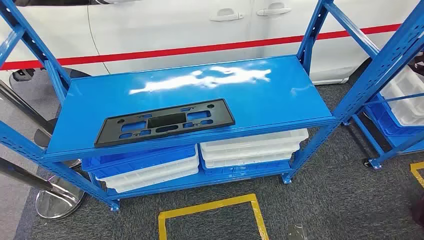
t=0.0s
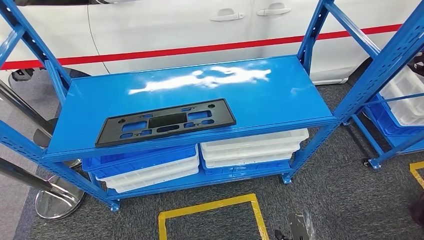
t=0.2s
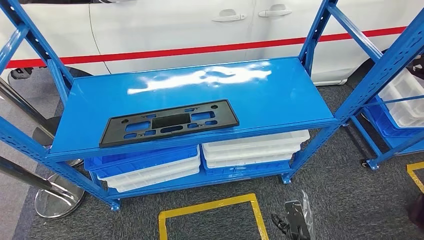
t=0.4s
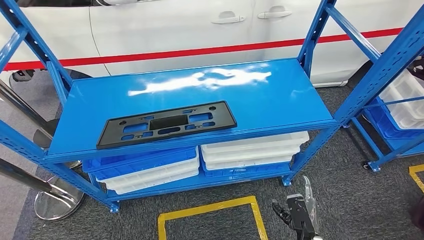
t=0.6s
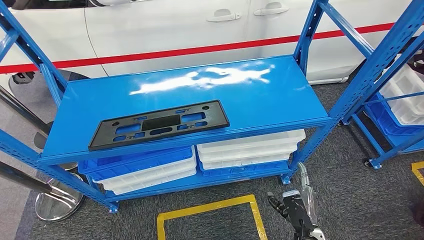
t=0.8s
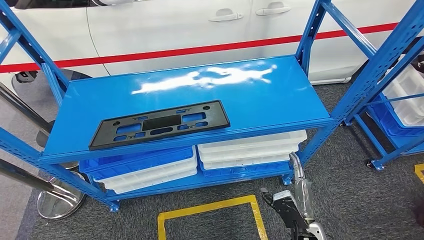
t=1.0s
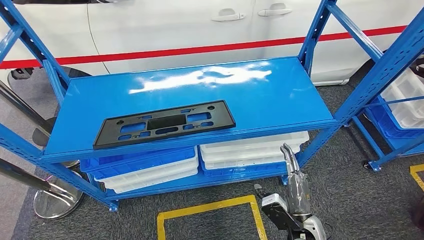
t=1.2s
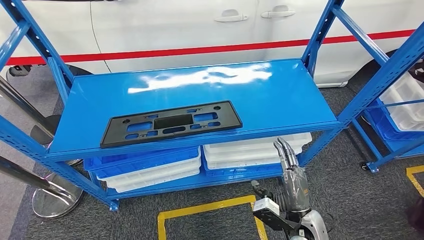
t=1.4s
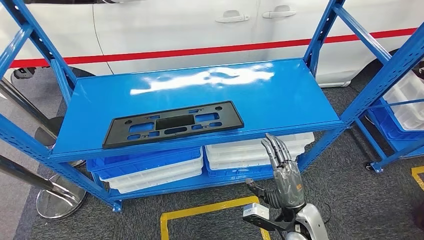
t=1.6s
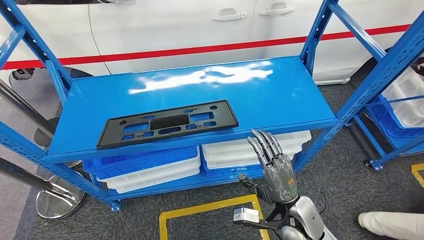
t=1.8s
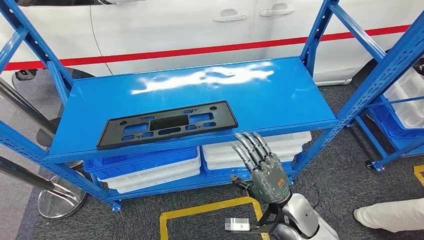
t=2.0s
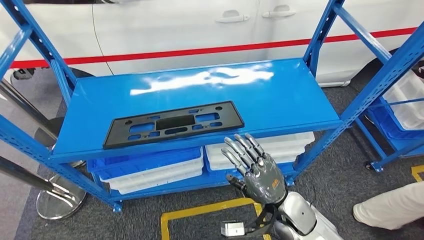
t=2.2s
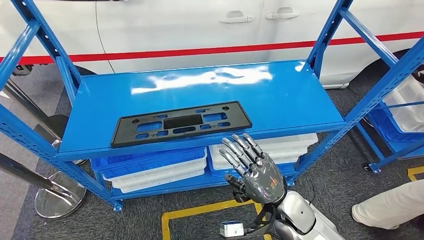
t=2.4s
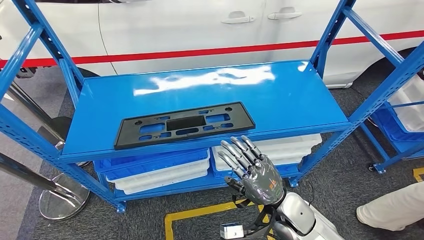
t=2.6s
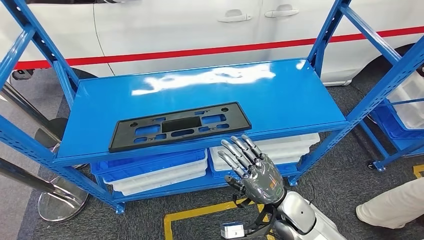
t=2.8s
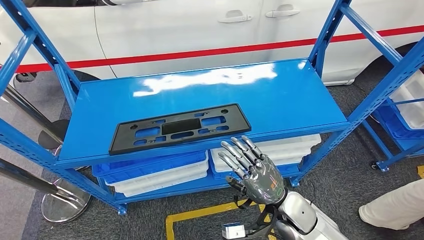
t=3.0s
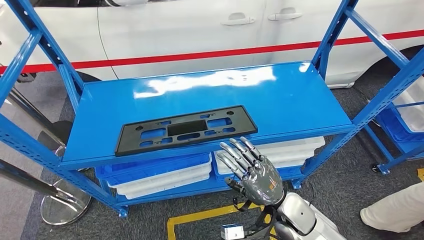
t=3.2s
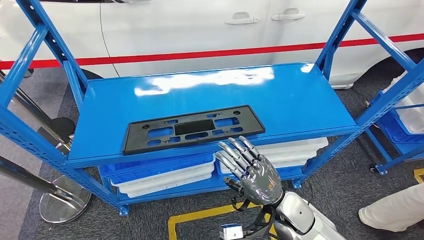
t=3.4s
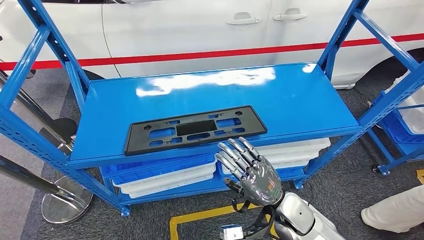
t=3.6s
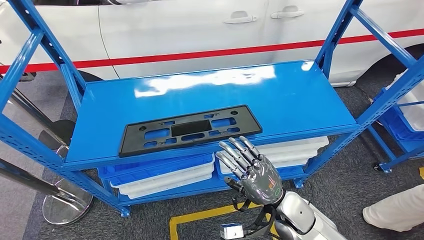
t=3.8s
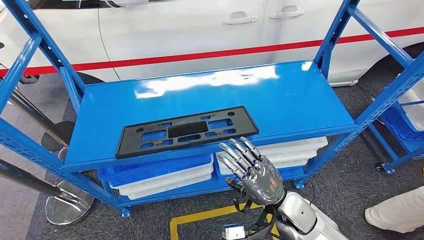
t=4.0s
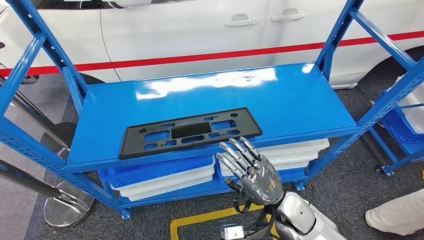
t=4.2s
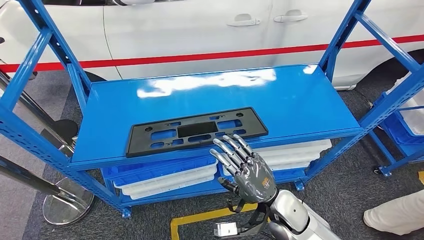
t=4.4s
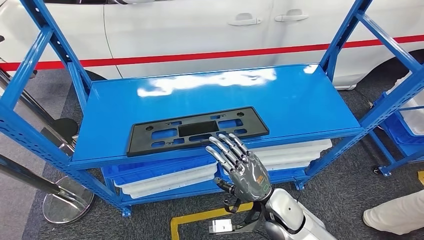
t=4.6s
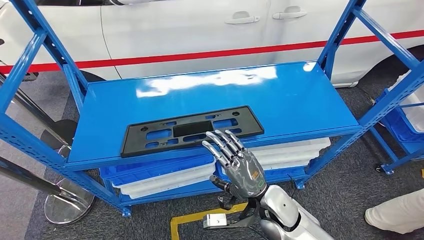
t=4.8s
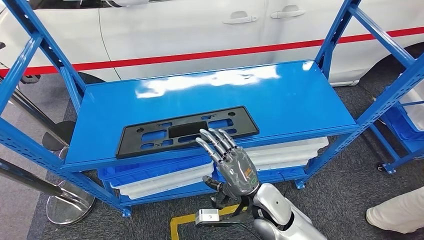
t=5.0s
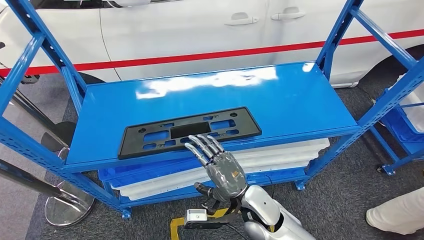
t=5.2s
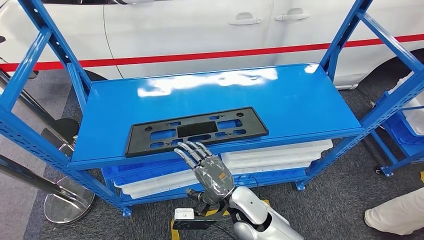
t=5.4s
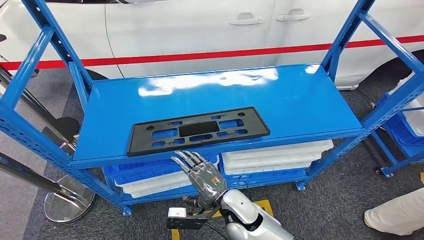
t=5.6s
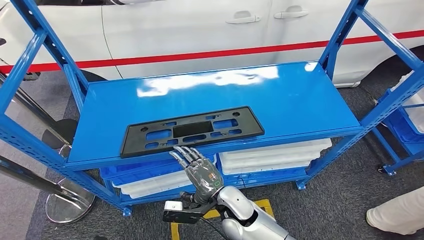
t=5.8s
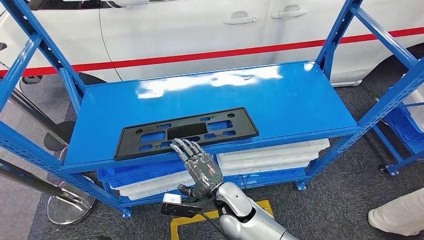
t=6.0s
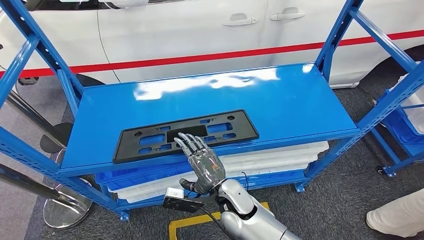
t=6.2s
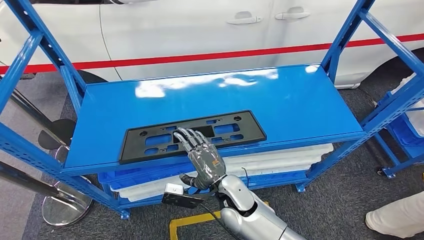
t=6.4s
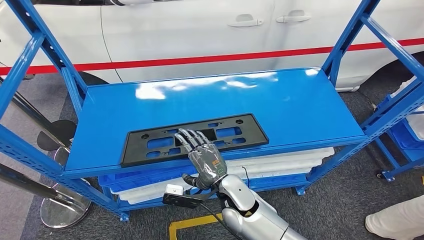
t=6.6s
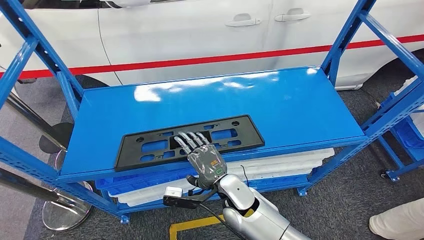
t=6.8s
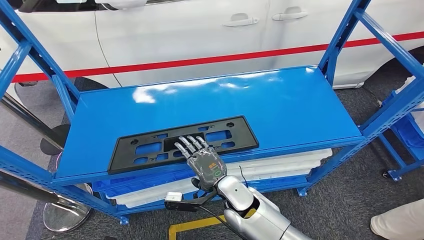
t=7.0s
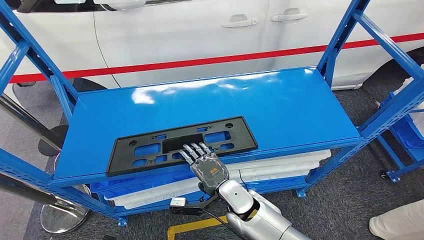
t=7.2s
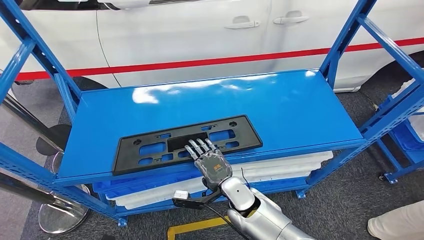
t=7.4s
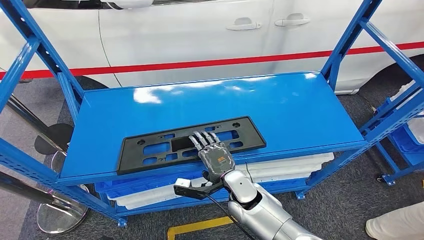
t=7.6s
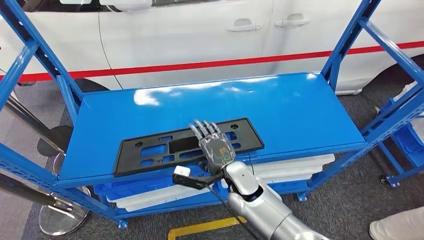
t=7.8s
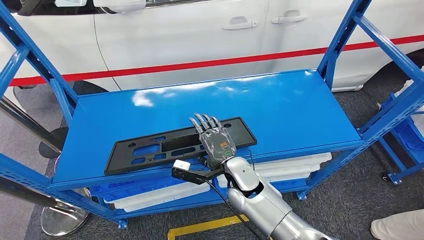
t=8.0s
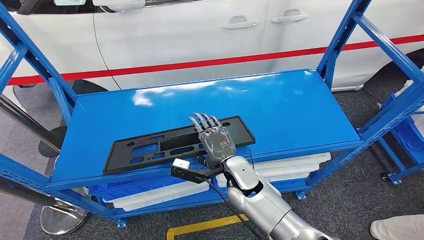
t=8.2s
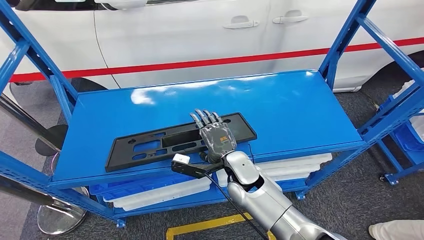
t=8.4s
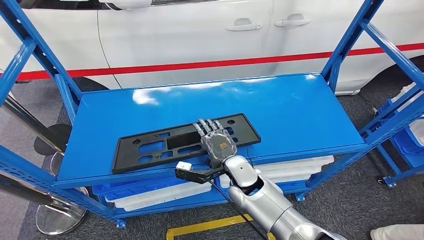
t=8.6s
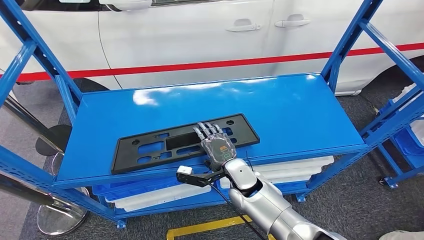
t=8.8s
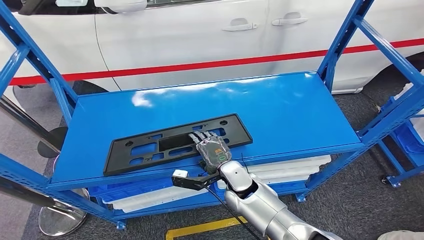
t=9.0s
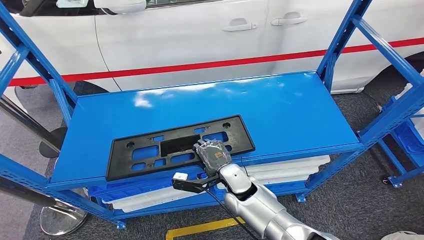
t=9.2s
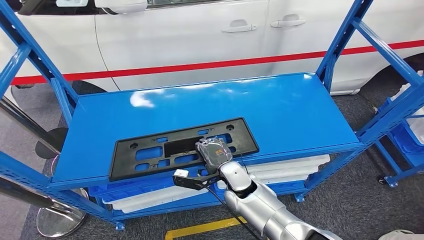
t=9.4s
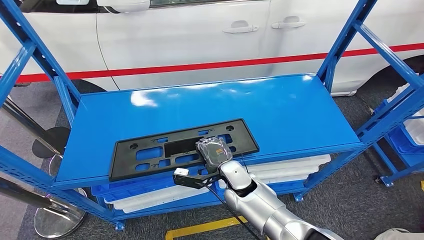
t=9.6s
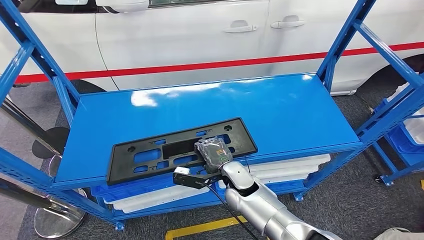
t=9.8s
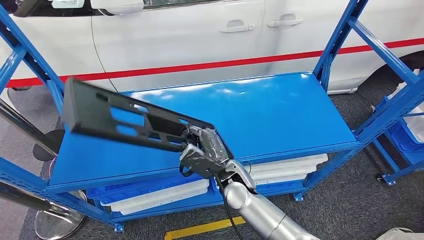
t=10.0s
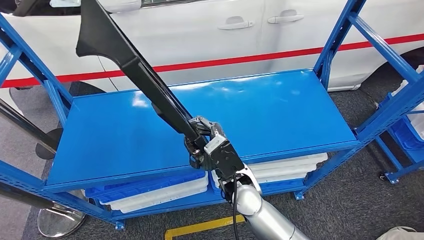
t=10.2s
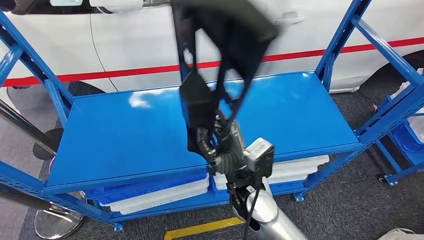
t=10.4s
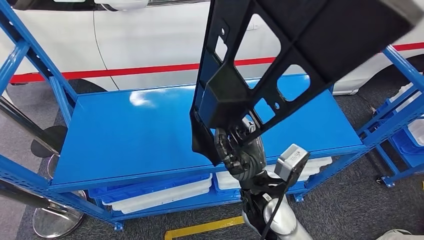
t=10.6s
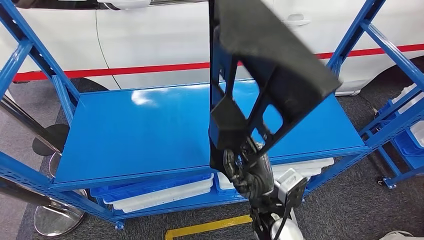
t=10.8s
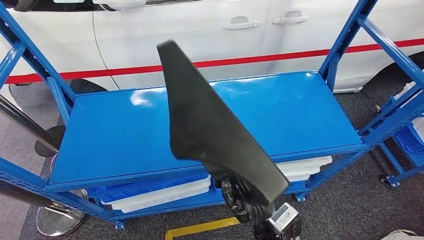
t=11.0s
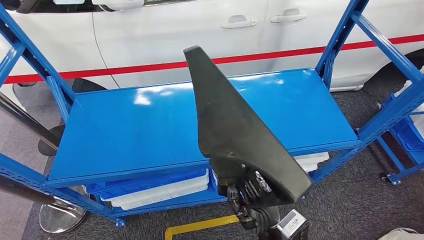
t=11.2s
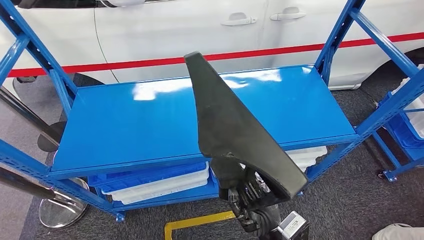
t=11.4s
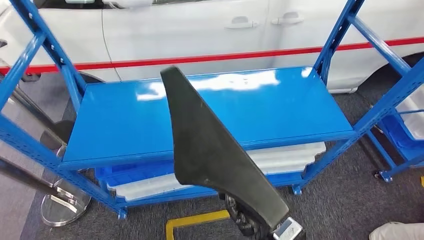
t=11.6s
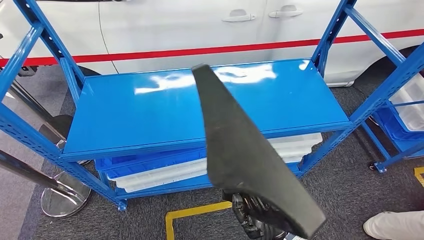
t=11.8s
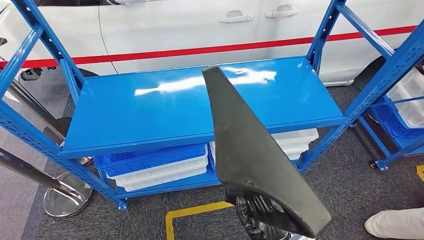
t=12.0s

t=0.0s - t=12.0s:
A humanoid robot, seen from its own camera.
Step, t=0.0s - t=11.0s: Pick up the large material from the shelf.

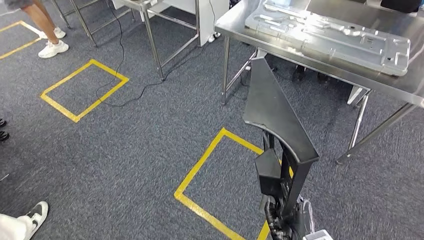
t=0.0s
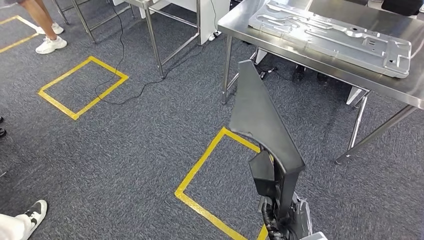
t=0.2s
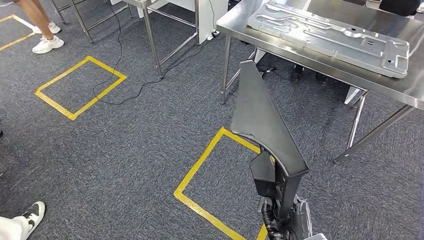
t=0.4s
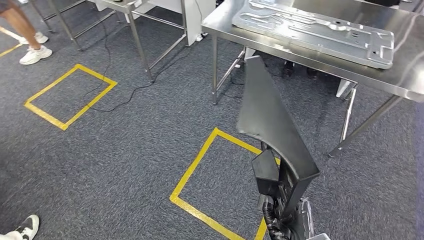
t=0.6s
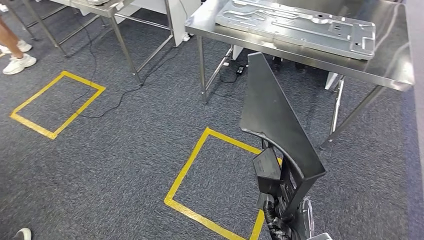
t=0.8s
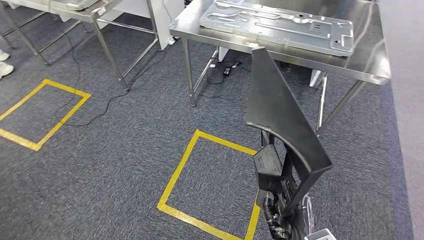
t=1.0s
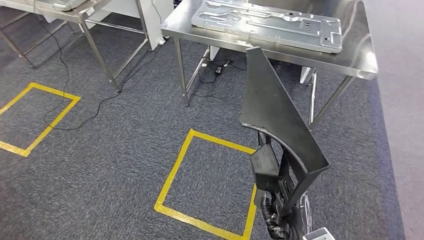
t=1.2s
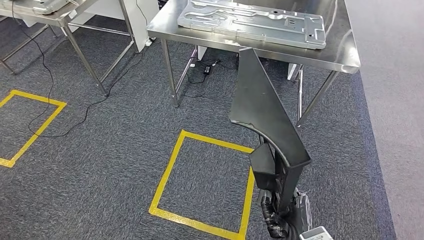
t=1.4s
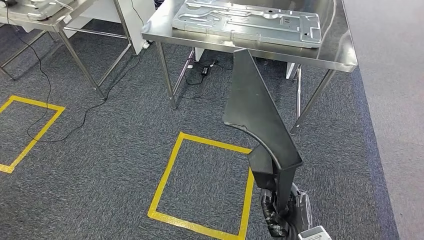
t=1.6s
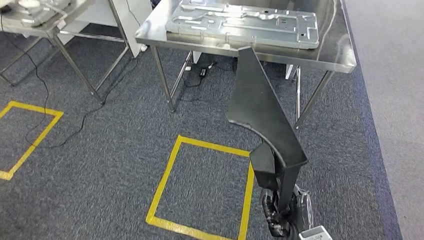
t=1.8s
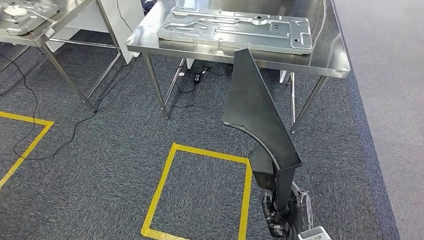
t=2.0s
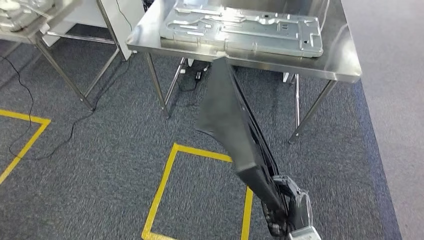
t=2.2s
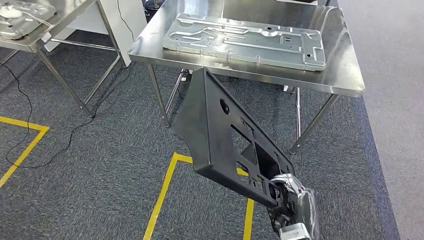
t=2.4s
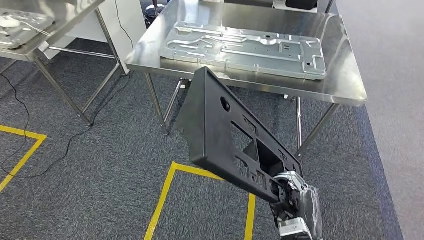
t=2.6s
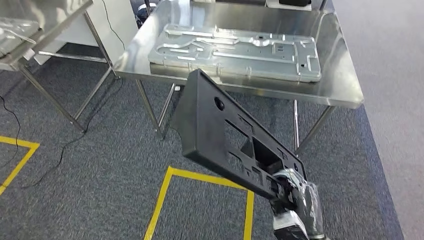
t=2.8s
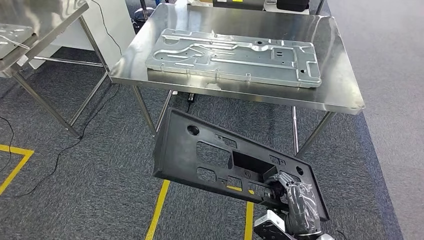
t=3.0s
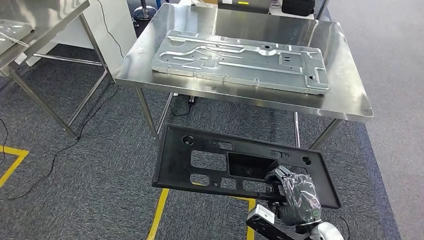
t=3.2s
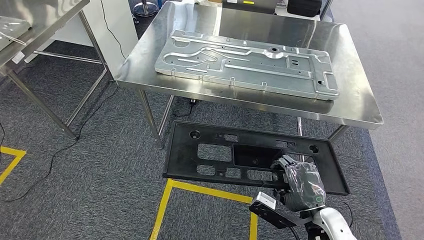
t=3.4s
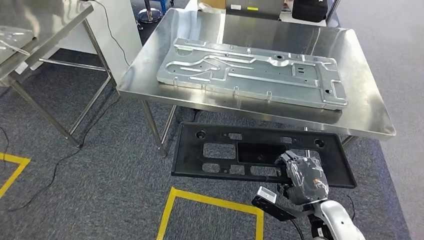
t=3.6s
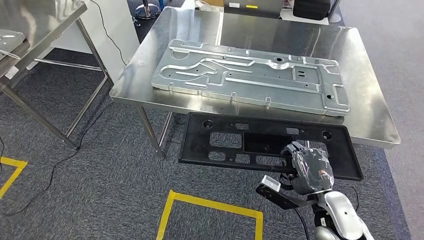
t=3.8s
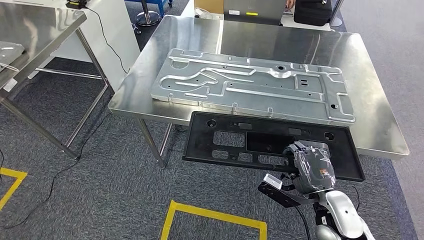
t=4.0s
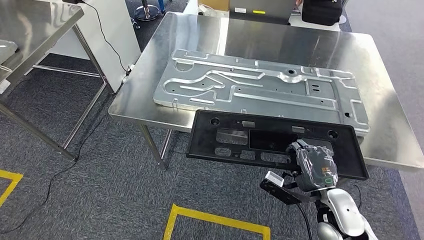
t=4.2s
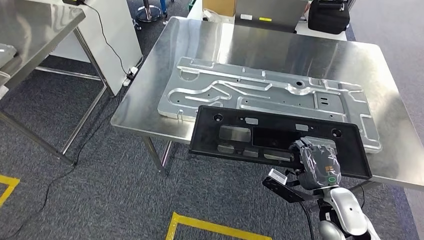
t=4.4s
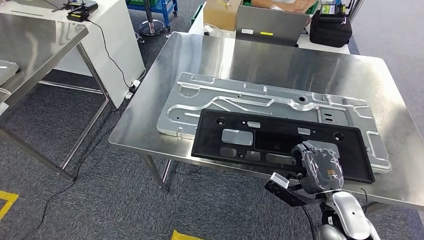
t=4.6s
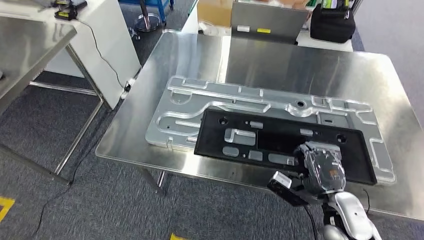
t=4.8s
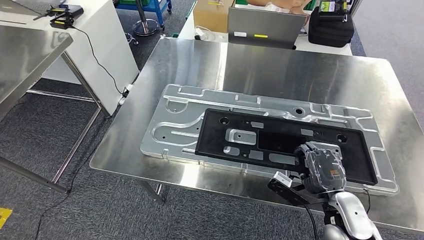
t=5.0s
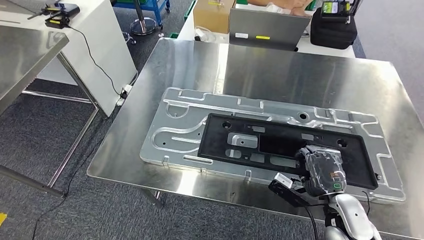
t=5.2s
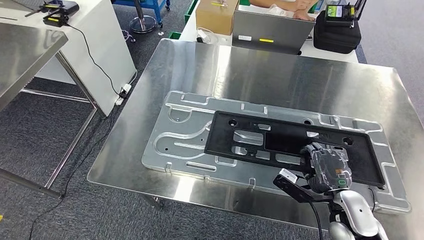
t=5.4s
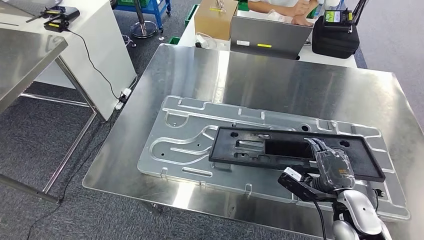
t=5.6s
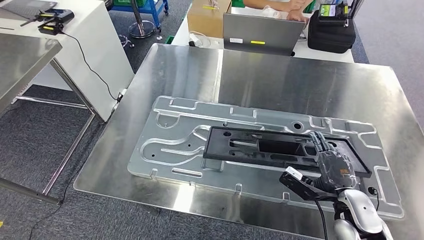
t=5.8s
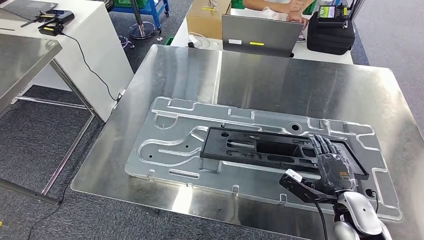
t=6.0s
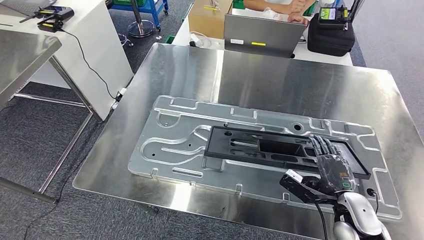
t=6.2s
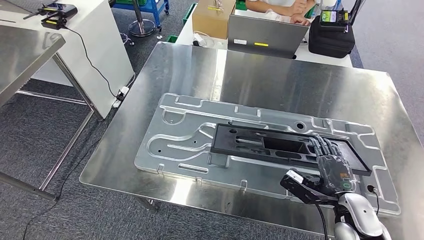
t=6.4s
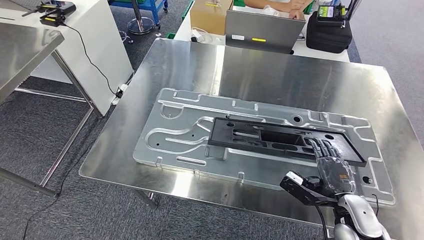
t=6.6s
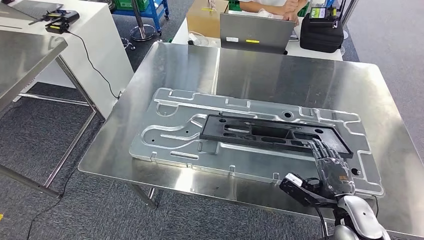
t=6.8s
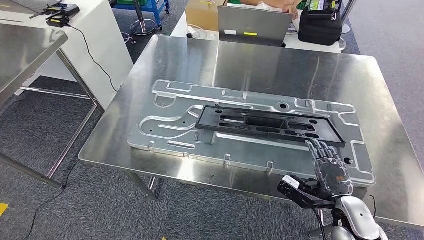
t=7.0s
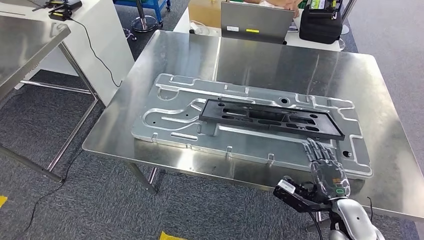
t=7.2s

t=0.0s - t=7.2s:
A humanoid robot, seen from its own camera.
Step, t=0.0s - t=4.2s: Move the large material to the workbench.
Step, t=4.4s - t=6.8s: Insert the large material into the corresponding slot on the workbench.
